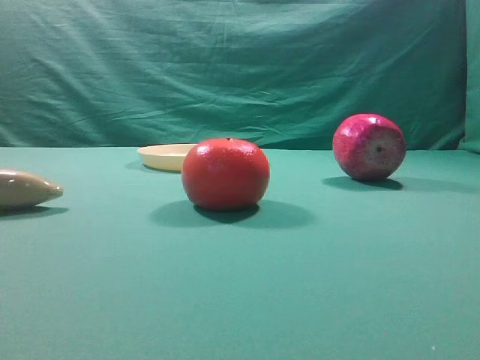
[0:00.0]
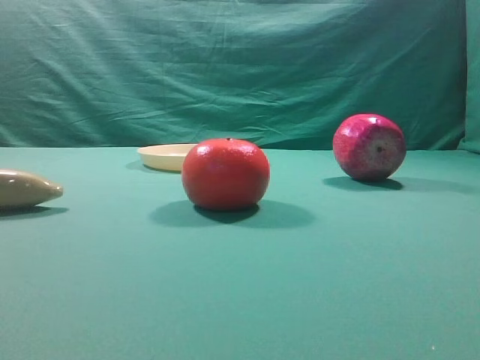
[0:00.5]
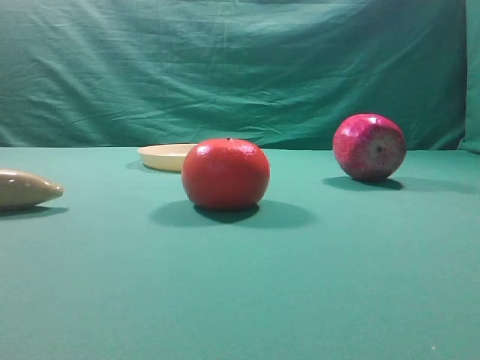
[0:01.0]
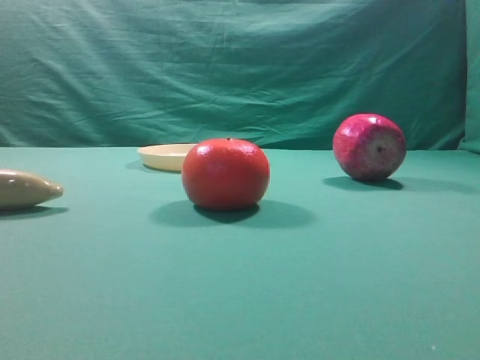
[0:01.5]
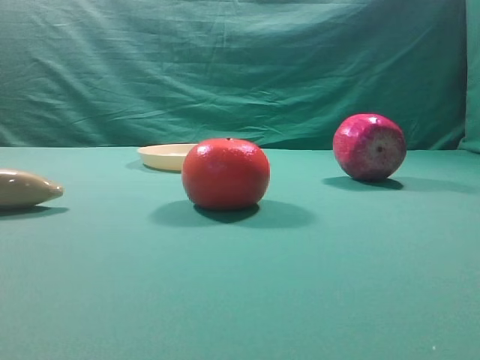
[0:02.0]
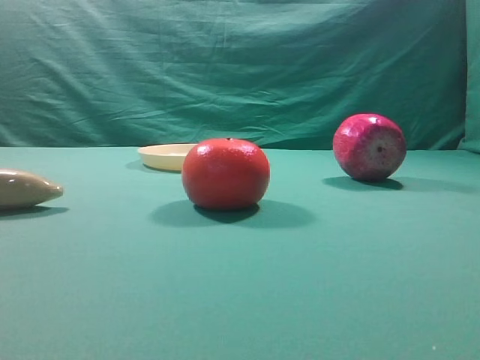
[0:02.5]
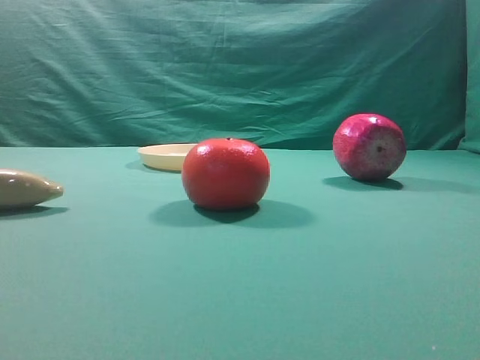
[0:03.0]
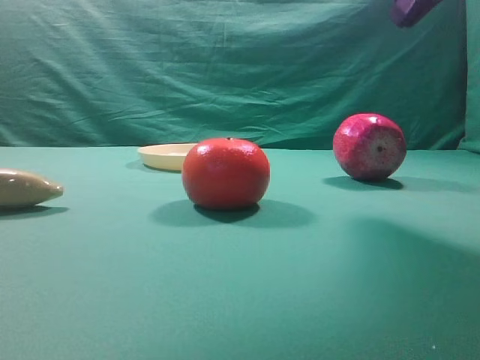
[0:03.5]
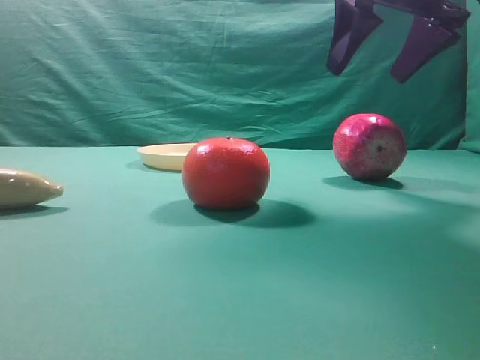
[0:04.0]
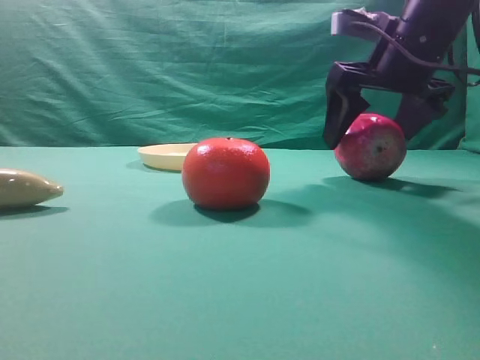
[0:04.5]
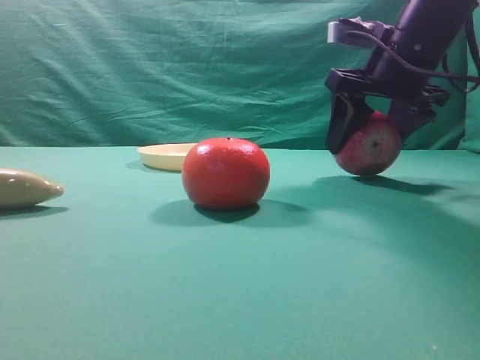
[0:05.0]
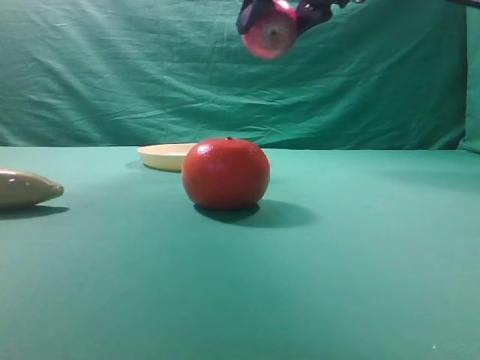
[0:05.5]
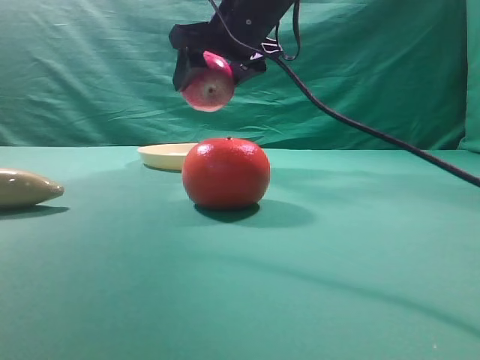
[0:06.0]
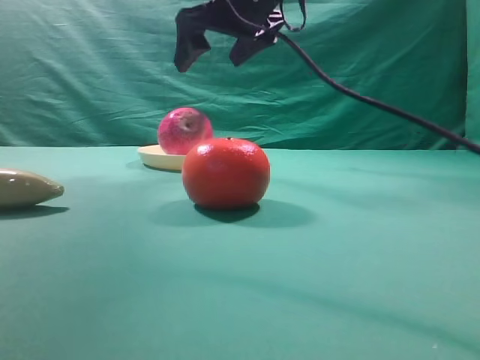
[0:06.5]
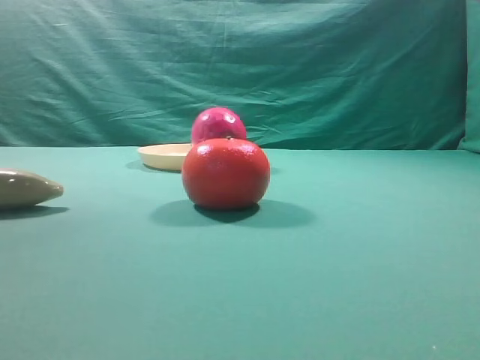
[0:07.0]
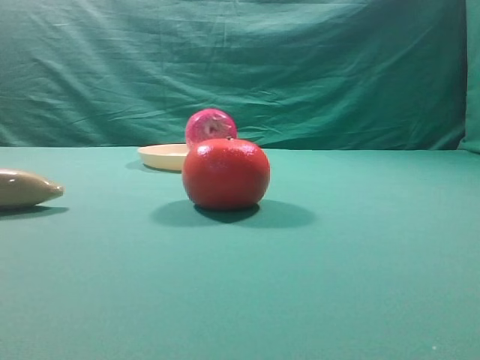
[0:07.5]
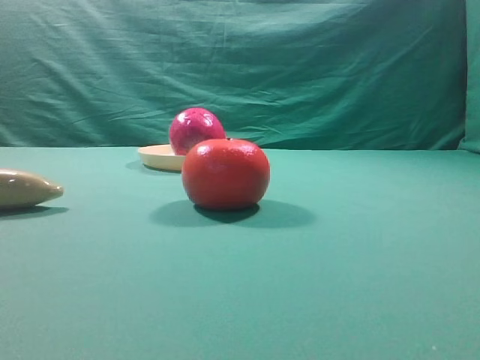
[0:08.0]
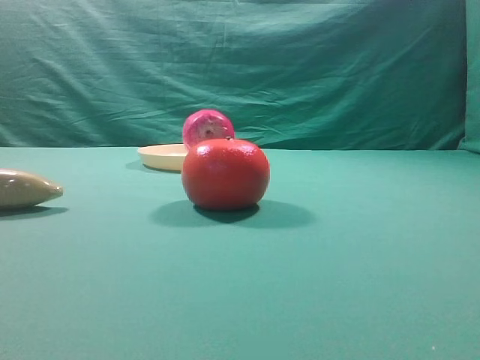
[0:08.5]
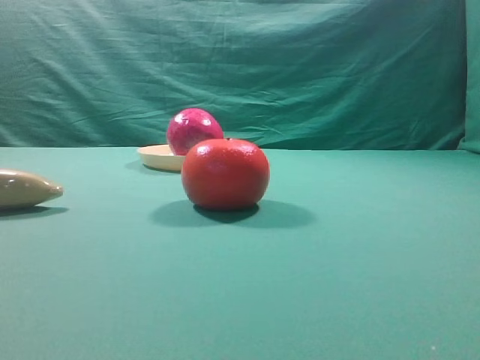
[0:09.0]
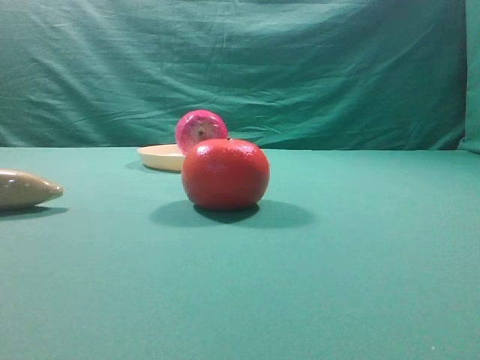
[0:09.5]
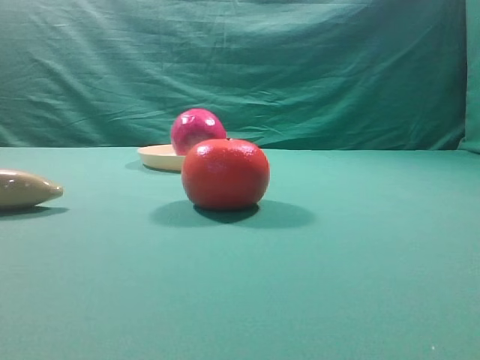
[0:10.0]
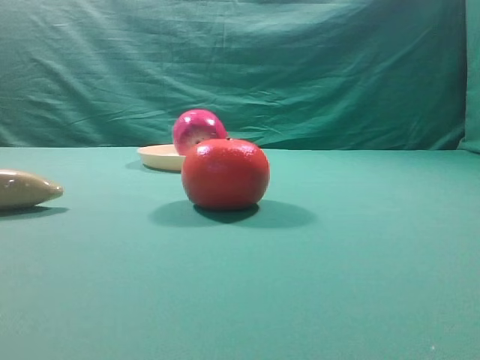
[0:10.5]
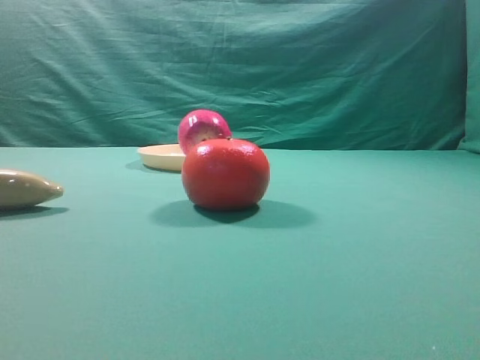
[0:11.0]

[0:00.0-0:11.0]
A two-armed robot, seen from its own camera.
Task of the whole recording: grasp the apple and place it into the yellow plate.
Step, 0:00.0 to 0:05.0: Grasp the fruit that can keep the doctor away.
Step, 0:05.5 to 0:06.0: Place the picked object into the yellow plate.
